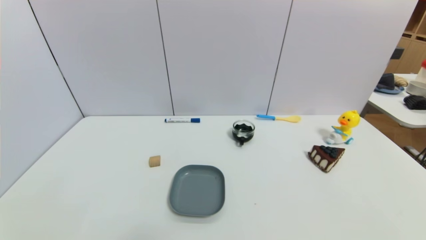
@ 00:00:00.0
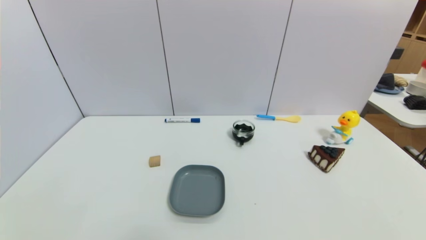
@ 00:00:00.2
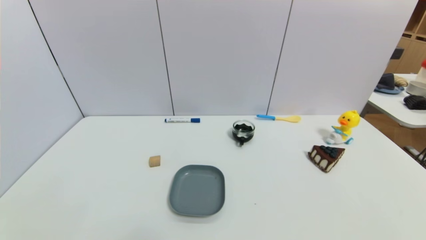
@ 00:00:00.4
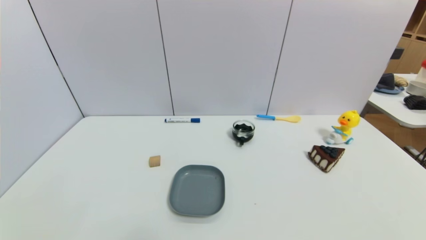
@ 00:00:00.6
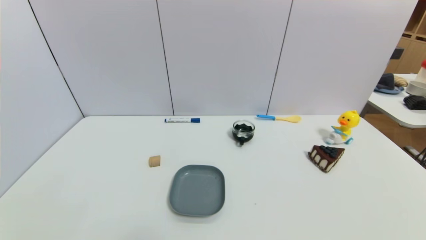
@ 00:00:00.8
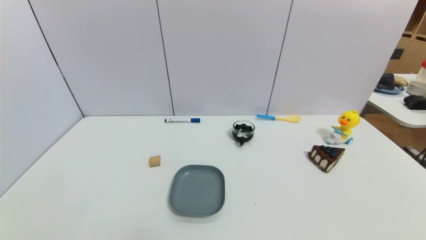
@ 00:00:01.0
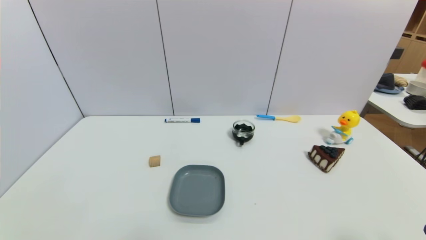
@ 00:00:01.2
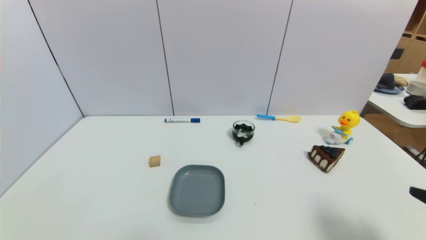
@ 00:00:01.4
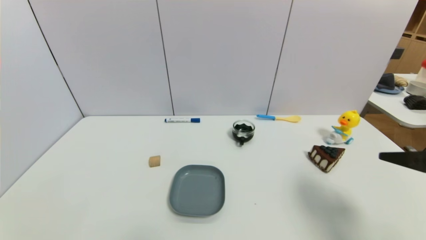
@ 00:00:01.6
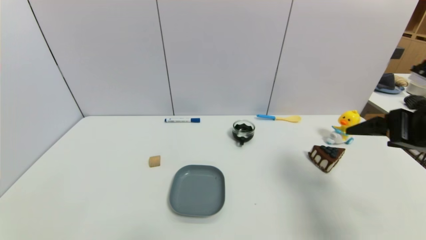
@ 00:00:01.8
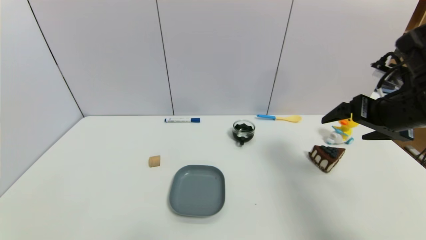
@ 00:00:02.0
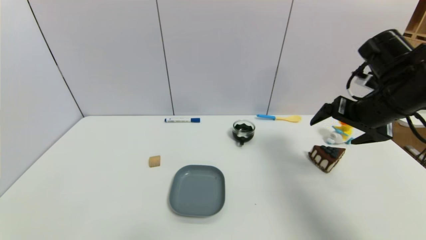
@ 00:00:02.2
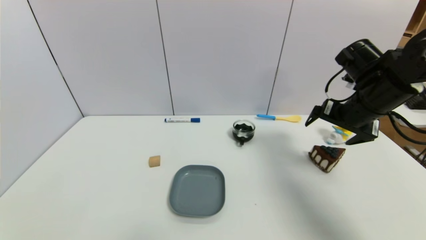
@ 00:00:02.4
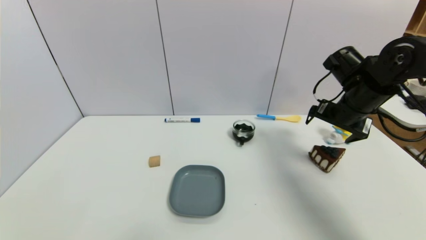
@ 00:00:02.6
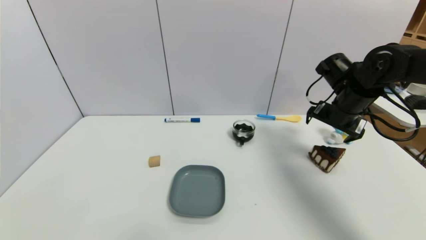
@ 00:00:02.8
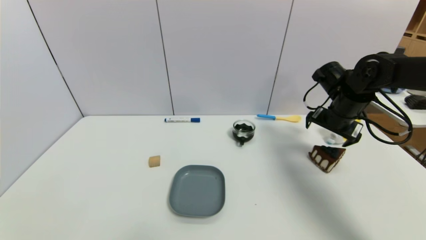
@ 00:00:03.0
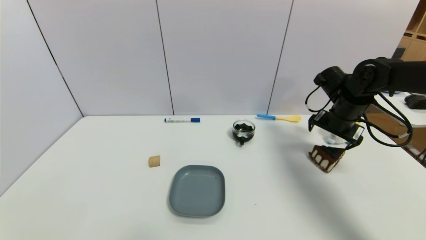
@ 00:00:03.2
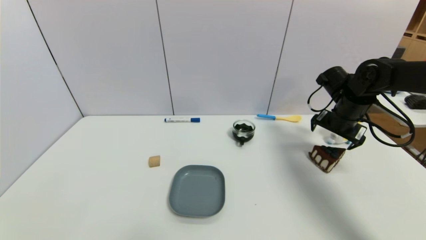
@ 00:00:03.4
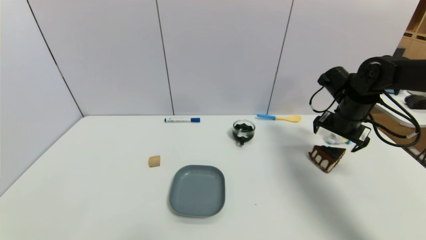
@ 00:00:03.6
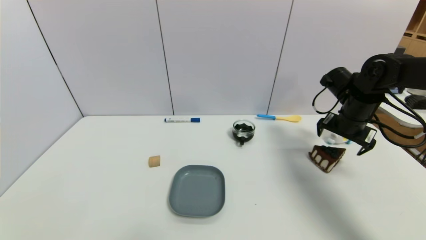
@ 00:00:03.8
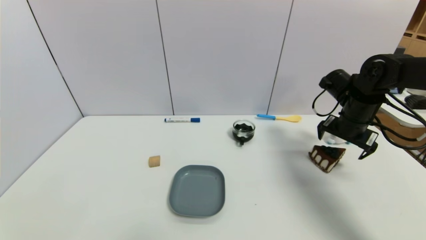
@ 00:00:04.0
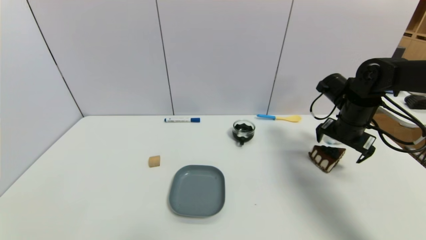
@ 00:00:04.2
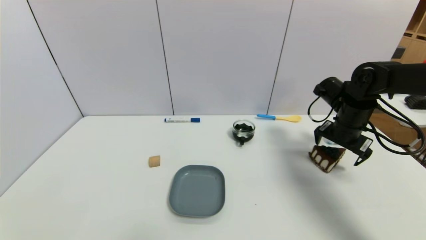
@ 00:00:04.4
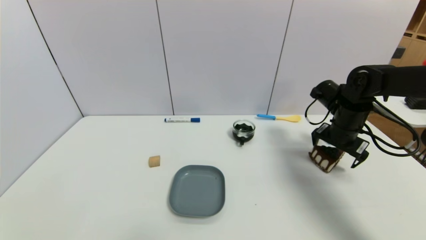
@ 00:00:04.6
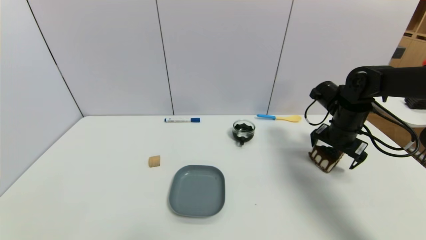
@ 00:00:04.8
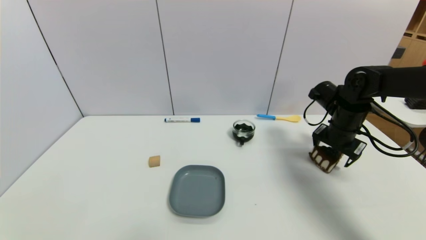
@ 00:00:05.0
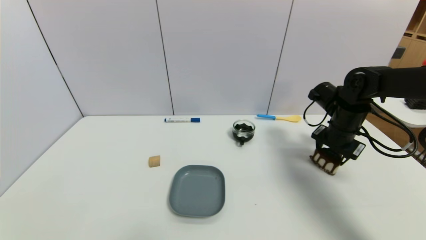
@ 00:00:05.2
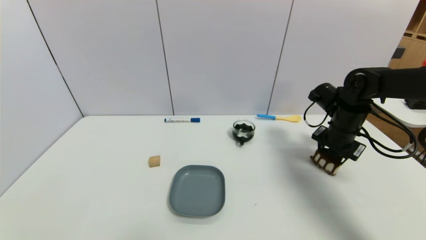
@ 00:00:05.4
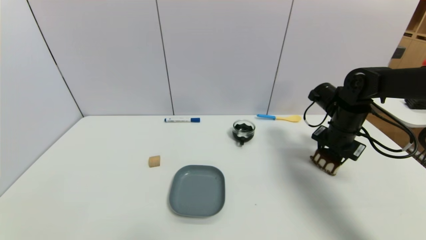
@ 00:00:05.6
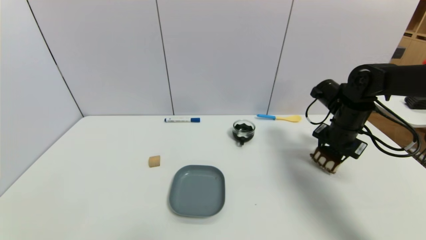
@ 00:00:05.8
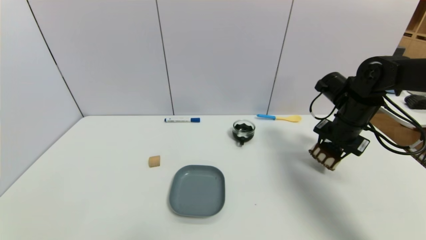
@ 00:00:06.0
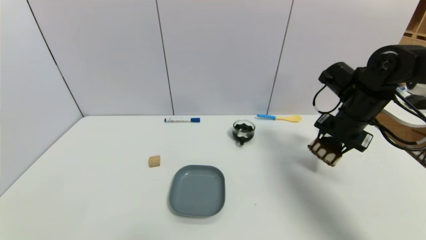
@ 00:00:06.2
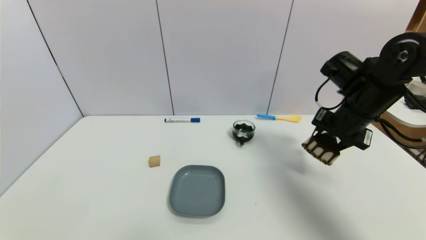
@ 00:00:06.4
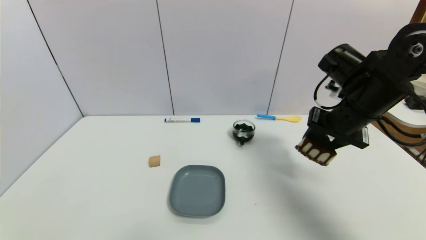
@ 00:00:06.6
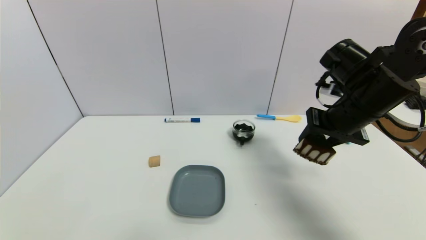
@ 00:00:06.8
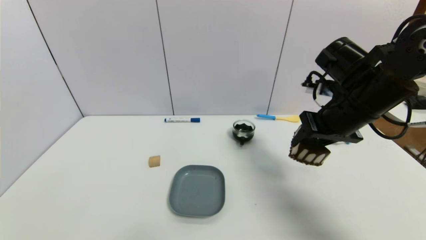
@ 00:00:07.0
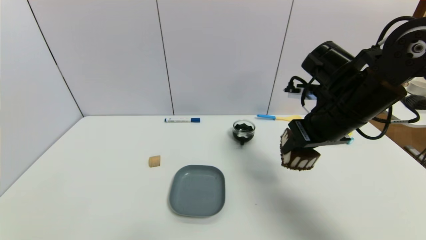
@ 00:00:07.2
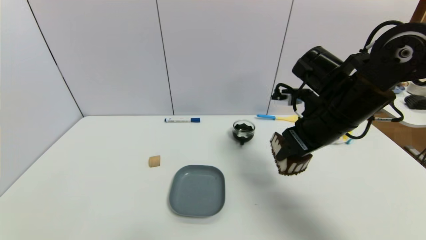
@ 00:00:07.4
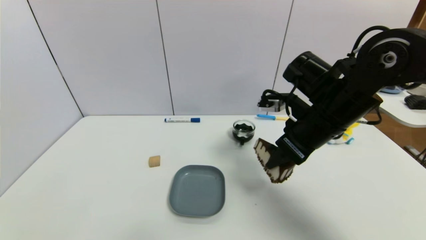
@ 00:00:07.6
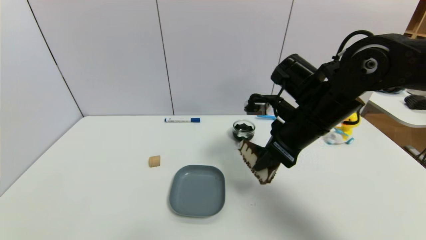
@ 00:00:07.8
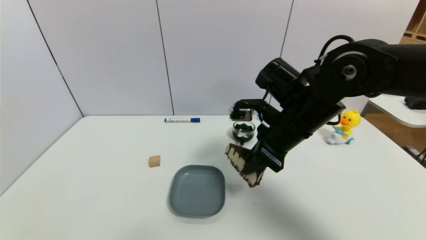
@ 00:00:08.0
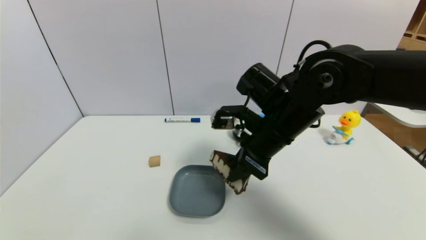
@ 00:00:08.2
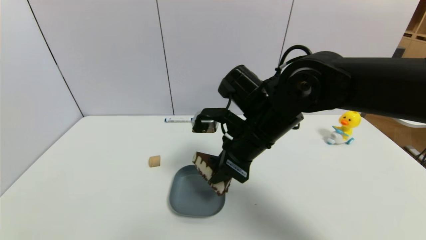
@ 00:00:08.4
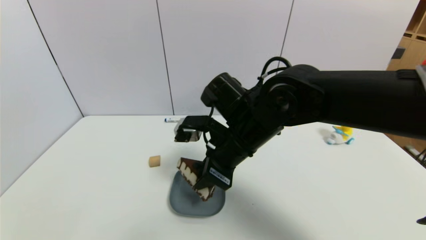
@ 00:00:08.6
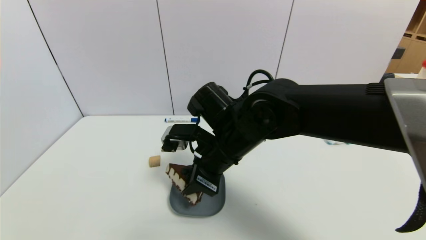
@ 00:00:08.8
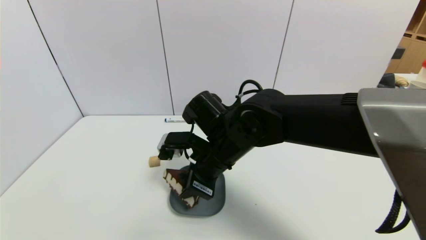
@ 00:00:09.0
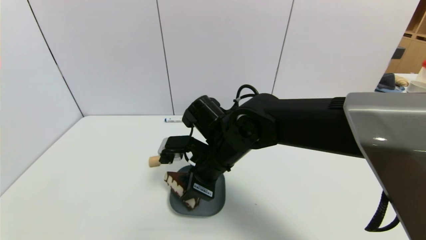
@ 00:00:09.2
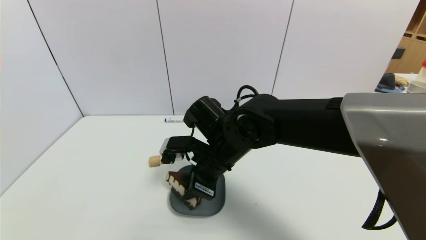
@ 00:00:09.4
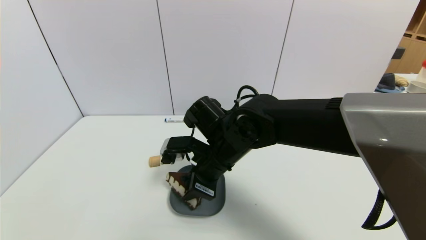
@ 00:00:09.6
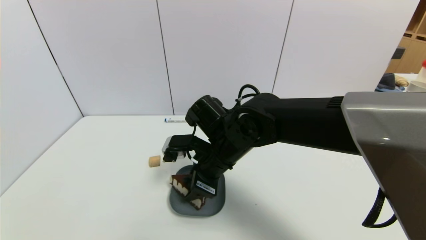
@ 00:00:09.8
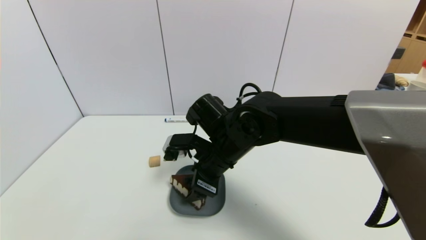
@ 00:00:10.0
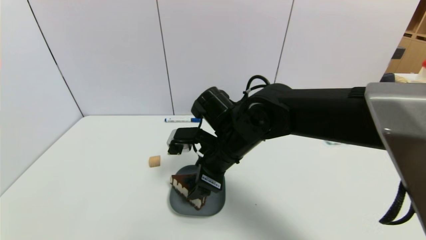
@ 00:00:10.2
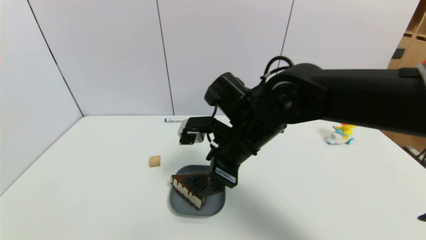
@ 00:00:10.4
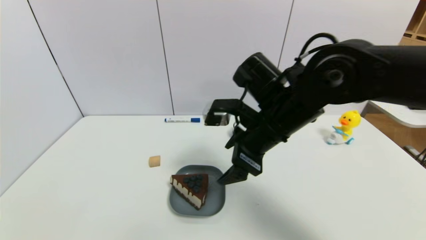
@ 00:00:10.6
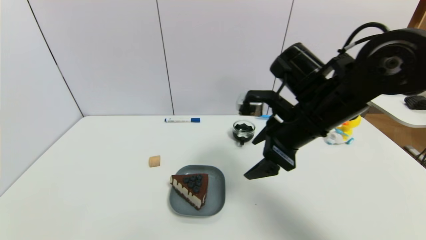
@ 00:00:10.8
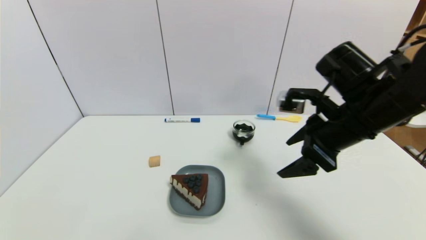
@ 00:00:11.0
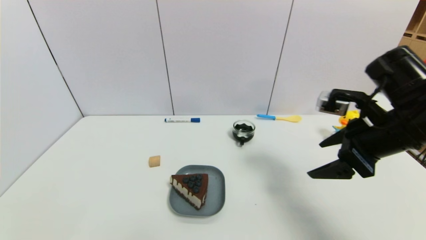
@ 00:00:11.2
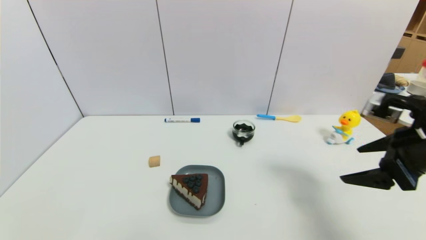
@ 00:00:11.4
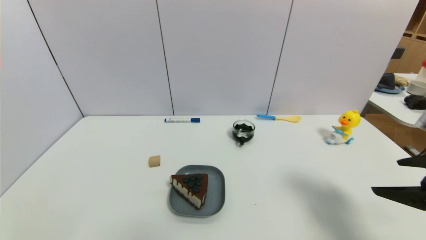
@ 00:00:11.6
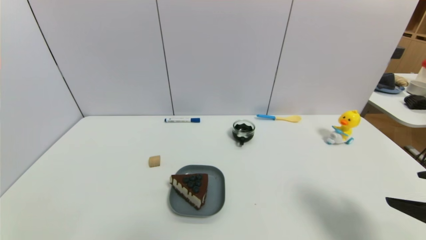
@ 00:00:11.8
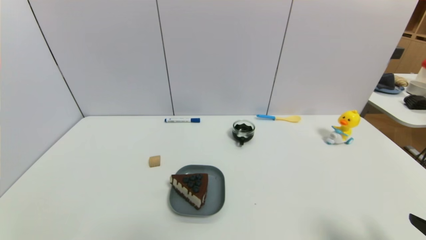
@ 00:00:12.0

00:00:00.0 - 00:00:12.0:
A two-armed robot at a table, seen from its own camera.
Task of the whole recording: use a gripper to pick the target object and place on the dish.
Step, 00:00:00.0 - 00:00:05.4: Grasp the chocolate cake with the right gripper.
Step, 00:00:05.6 - 00:00:10.6: Place the chocolate cake on the dish with the right gripper.
00:00:00.0 - 00:00:01.6: The right gripper moves upward and forward, some 25 cm.
00:00:01.6 - 00:00:03.0: The right gripper heads forward, covering approximately 25 cm.
00:00:03.0 - 00:00:04.4: The grippers make only small movements.
00:00:04.4 - 00:00:06.0: The right gripper closes up.
00:00:06.0 - 00:00:07.6: The right gripper goes roughly 15 cm to the left, backward and upward.
00:00:07.6 - 00:00:09.0: The right gripper heads to the left, covering about 15 cm.
00:00:09.0 - 00:00:10.4: The right gripper opens up.
00:00:10.4 - 00:00:12.0: The right gripper moves to the right and backward, roughly 35 cm.

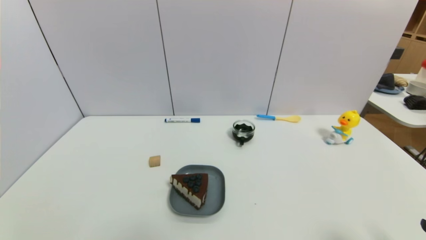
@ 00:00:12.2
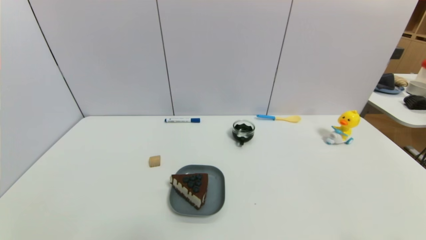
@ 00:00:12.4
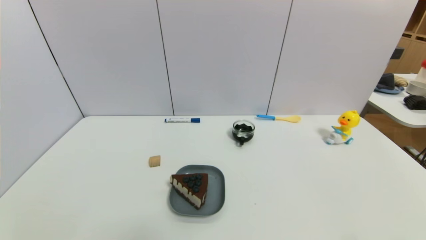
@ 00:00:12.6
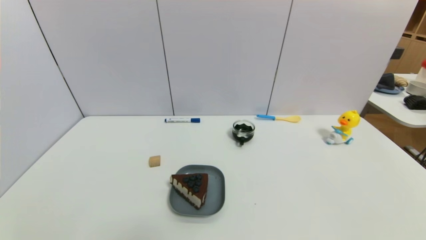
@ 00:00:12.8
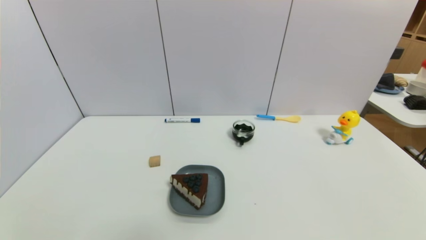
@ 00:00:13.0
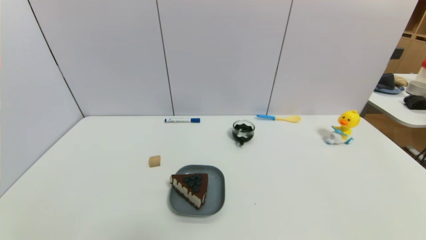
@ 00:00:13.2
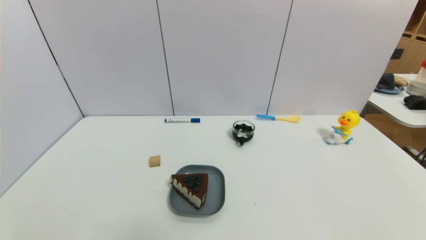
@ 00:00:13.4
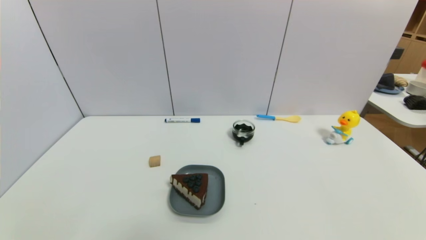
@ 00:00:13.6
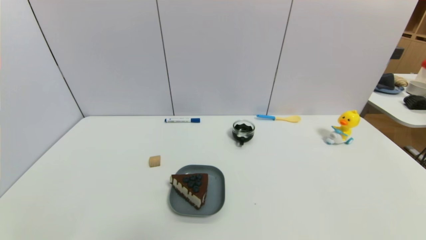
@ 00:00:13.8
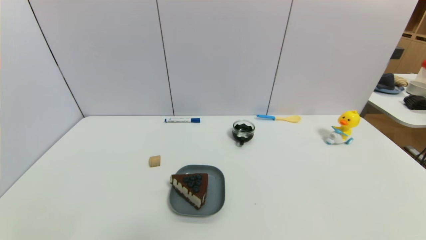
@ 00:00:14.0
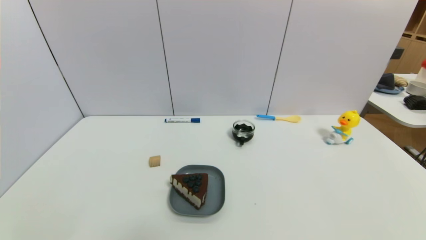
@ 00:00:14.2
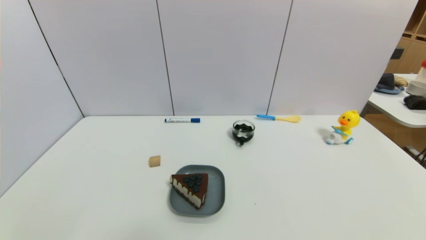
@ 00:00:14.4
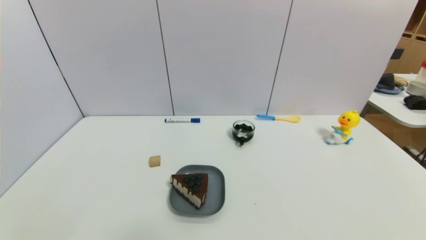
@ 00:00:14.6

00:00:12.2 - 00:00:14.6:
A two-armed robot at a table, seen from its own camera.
Task of the whole recording: use a gripper to pick the target object and place on the dish.
00:00:13.4 - 00:00:14.6: Both grippers stay about where they are.
